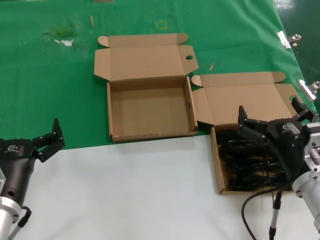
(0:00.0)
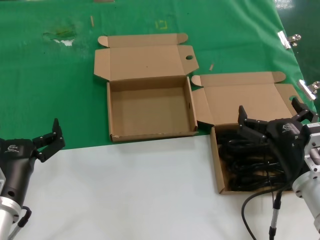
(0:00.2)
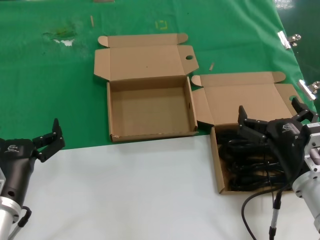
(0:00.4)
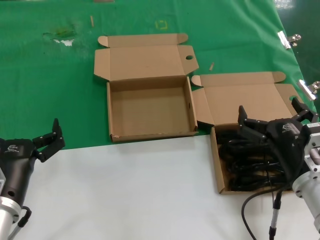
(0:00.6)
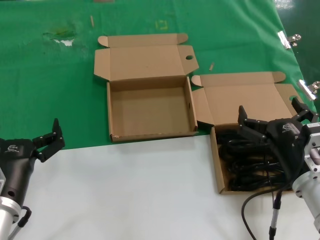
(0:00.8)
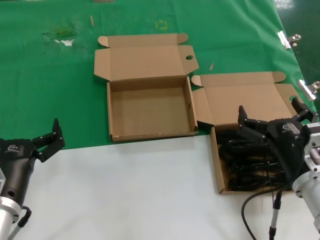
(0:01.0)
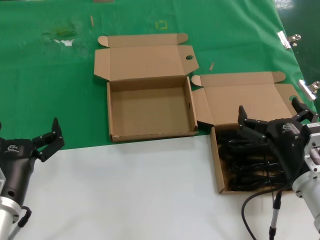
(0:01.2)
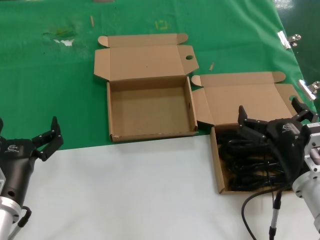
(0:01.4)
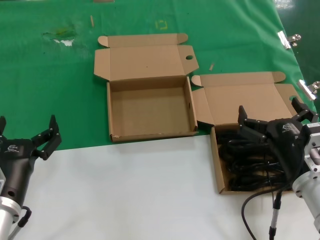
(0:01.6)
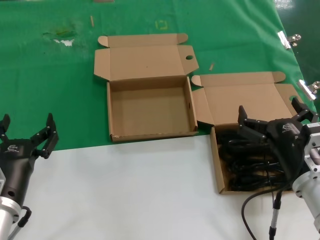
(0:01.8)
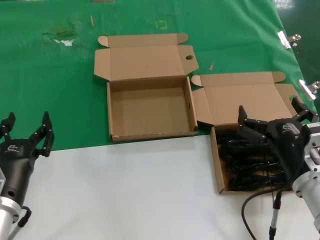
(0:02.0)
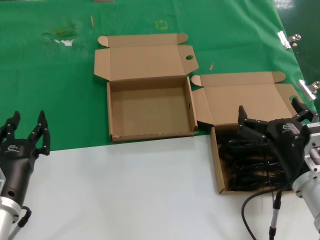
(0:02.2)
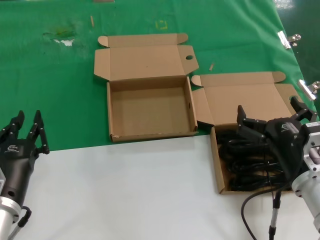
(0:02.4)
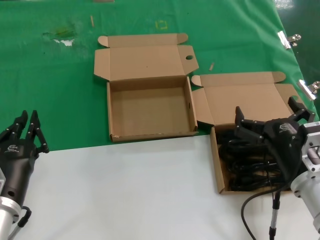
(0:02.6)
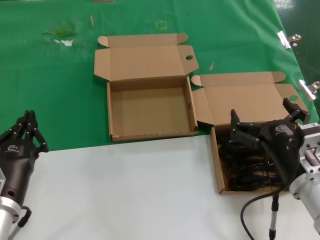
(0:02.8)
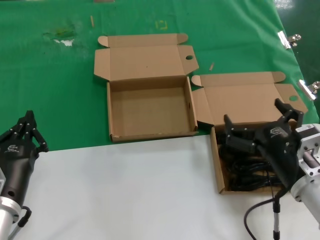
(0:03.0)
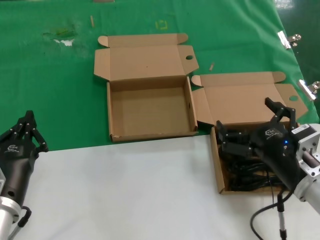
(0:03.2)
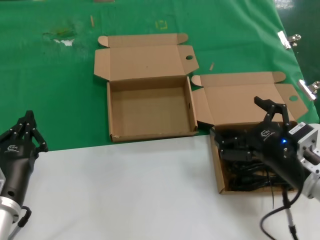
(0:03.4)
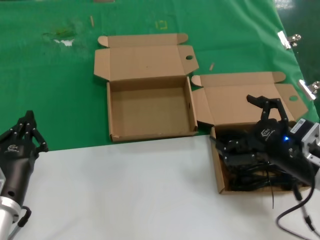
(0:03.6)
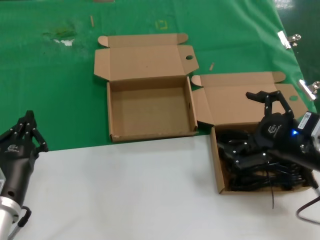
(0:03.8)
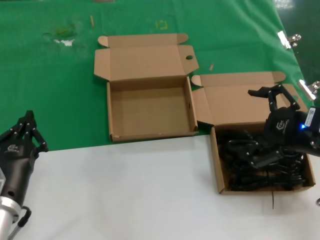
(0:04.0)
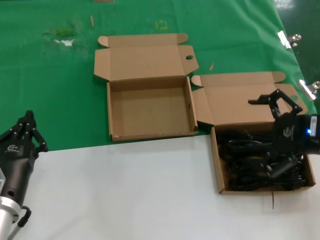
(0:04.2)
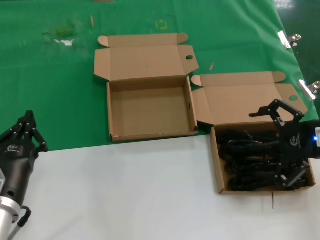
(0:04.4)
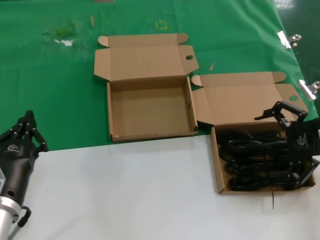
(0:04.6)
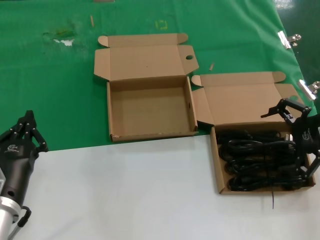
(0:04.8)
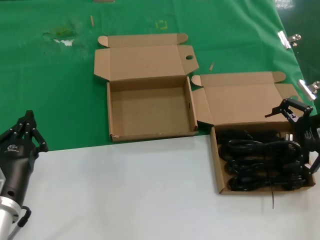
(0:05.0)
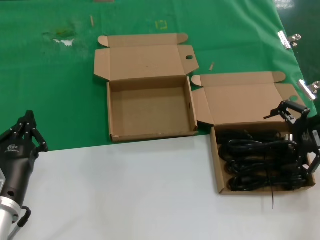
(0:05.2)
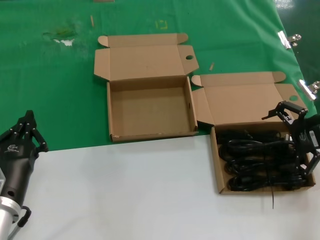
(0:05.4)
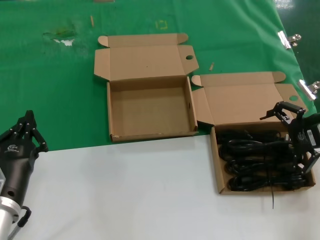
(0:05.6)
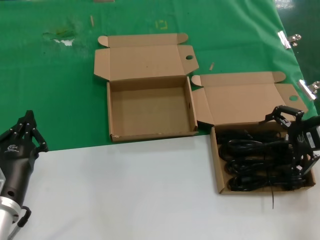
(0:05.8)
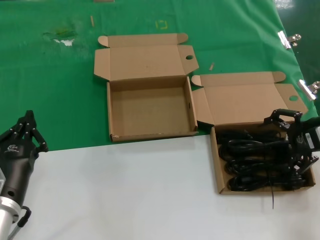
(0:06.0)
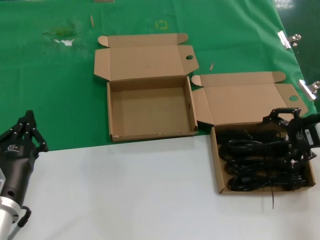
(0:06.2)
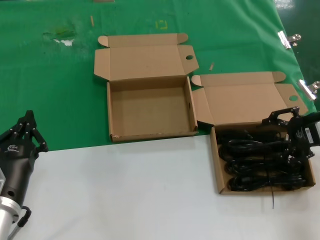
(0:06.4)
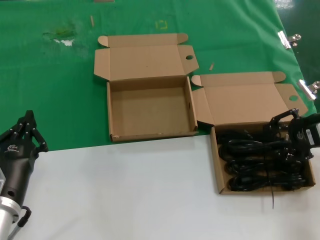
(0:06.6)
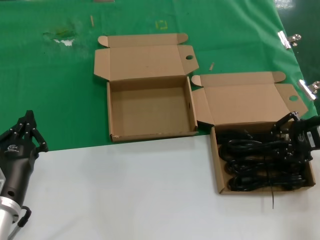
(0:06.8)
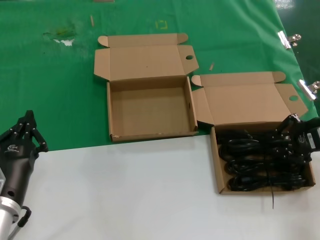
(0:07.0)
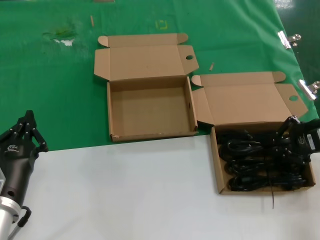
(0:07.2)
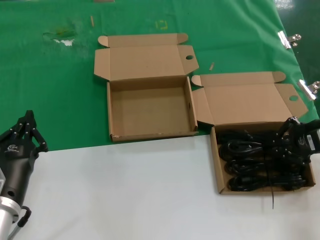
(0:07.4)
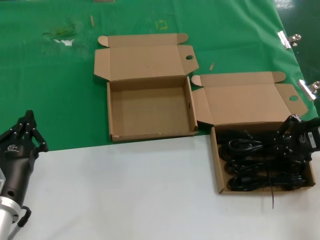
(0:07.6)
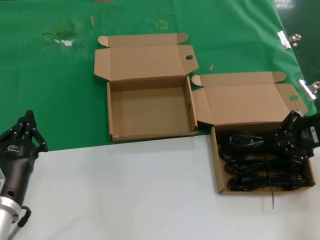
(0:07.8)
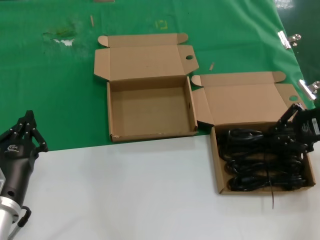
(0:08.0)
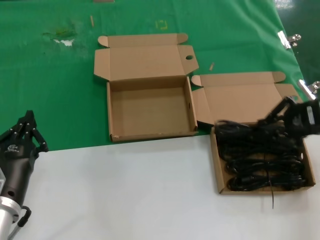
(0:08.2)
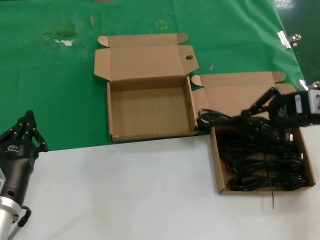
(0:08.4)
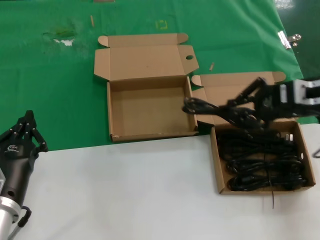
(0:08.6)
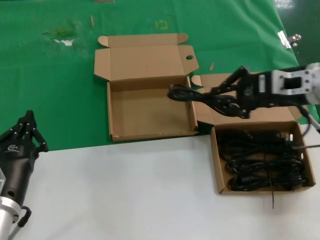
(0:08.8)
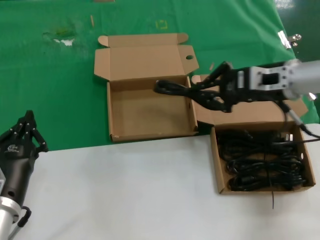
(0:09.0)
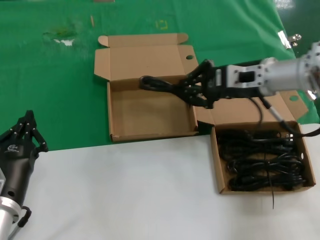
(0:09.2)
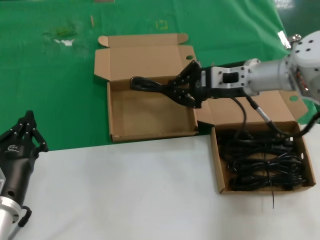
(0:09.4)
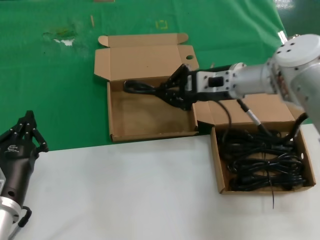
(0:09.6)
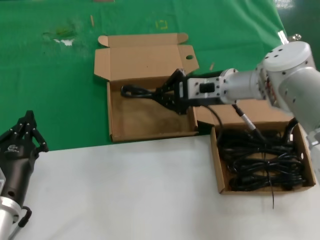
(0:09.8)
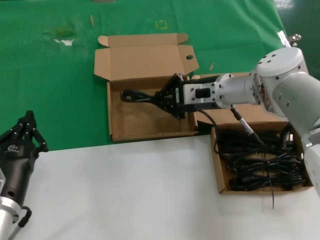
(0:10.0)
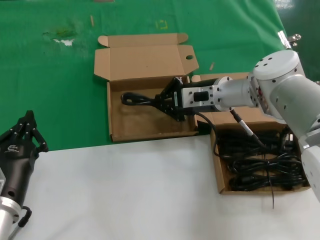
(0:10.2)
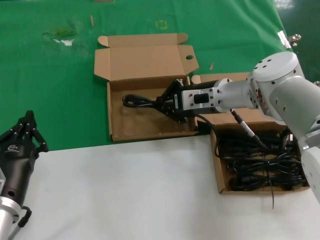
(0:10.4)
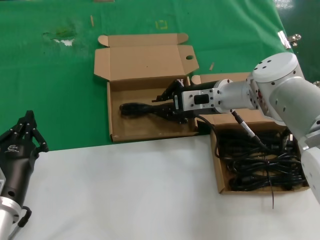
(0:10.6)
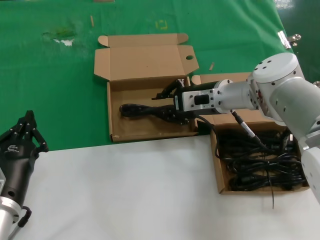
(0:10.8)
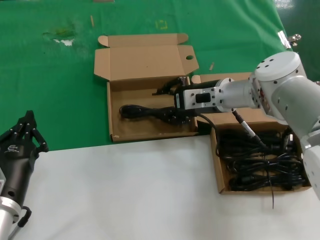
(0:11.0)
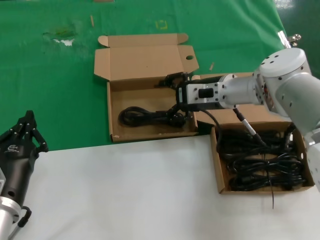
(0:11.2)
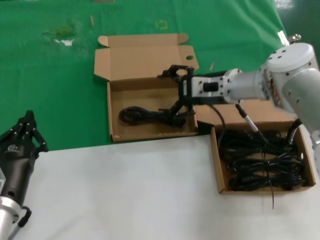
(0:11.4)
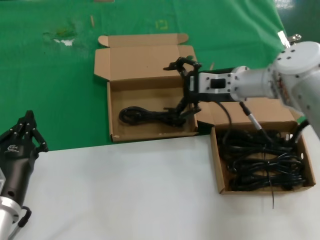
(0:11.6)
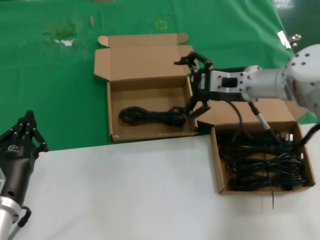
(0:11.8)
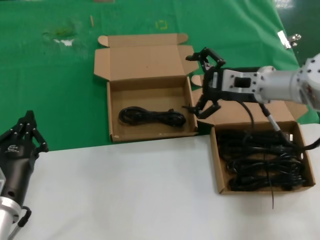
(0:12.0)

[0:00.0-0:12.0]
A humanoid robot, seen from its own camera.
Task of the whole recording: take the parts from the box containing them and put them into an empty box.
Step, 0:00.0 to 0:07.2: Grasp the data cable.
Step, 0:07.6 to 0:10.8: Place the data cable in the another box.
0:00.0 to 0:01.6: Both hands stay put.
0:01.6 to 0:03.0: There are only small adjustments of the hands.
0:03.0 to 0:04.4: The right hand is displaced upward, to the right and forward by some 20 cm.
0:04.4 to 0:06.0: The right hand is displaced forward by about 5 cm.
0:06.0 to 0:07.6: Neither hand changes place.
0:07.6 to 0:09.0: The right hand is displaced to the left and forward by approximately 15 cm.
0:09.0 to 0:10.4: The right hand shifts approximately 15 cm to the left, downward and forward.
0:10.4 to 0:12.0: The right hand heads to the right, covering roughly 5 cm.

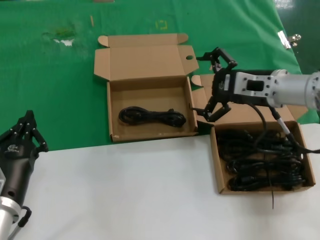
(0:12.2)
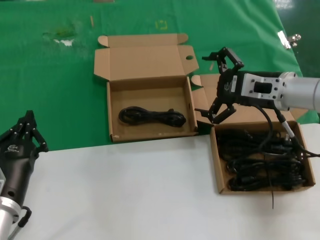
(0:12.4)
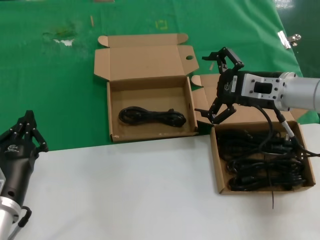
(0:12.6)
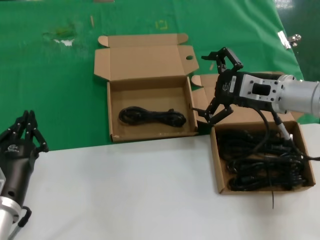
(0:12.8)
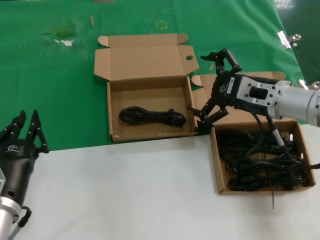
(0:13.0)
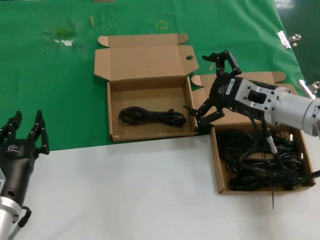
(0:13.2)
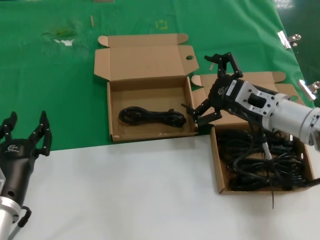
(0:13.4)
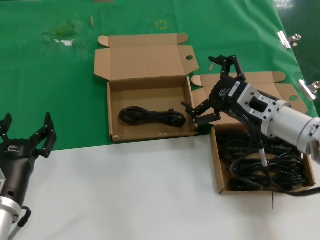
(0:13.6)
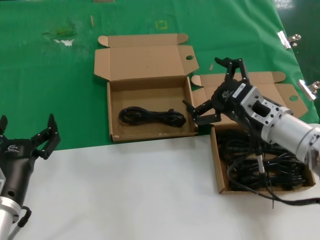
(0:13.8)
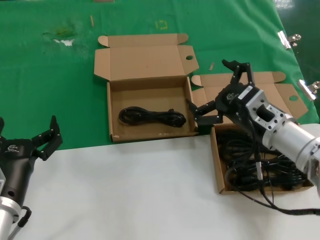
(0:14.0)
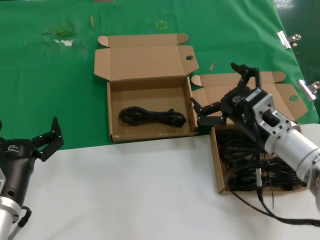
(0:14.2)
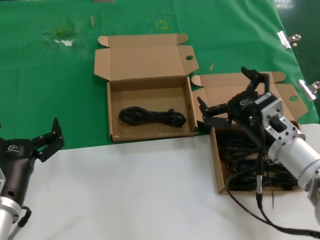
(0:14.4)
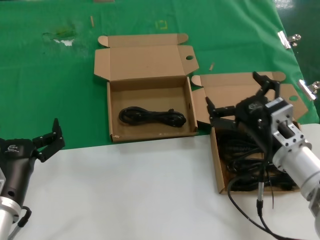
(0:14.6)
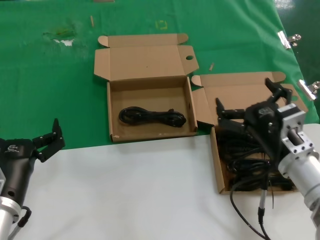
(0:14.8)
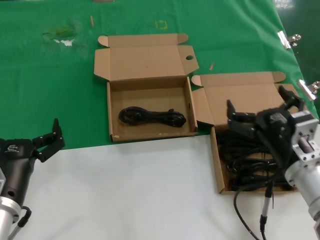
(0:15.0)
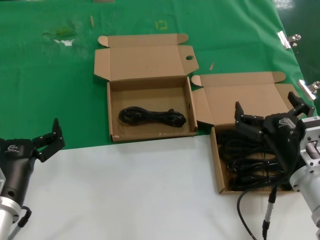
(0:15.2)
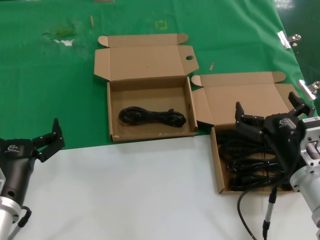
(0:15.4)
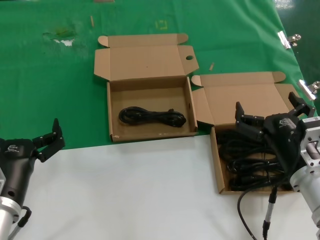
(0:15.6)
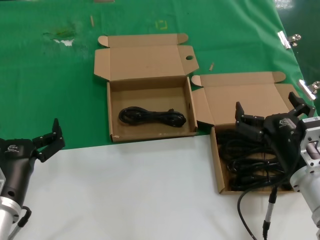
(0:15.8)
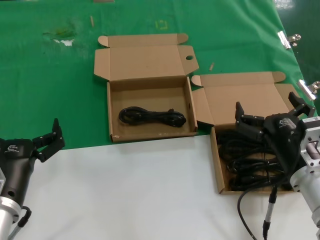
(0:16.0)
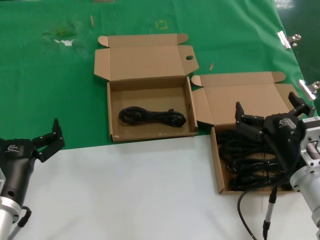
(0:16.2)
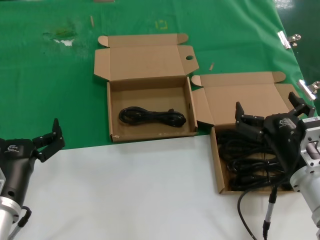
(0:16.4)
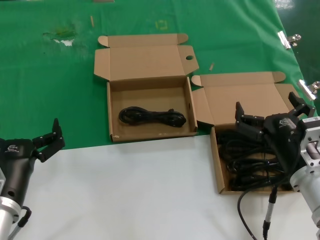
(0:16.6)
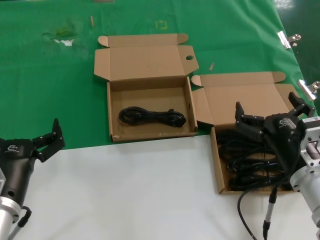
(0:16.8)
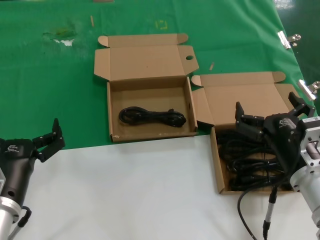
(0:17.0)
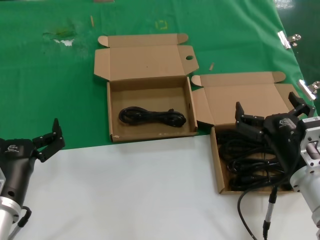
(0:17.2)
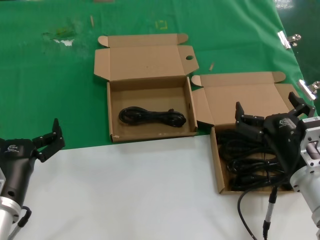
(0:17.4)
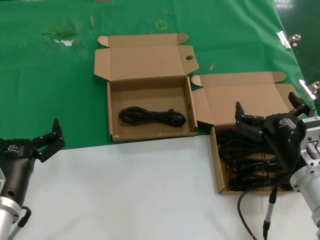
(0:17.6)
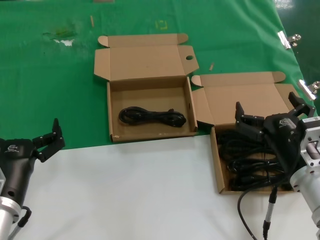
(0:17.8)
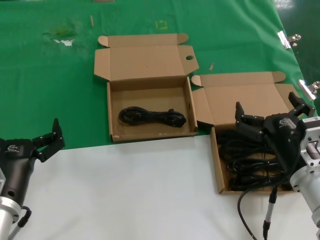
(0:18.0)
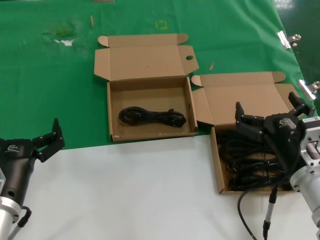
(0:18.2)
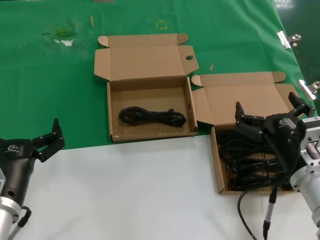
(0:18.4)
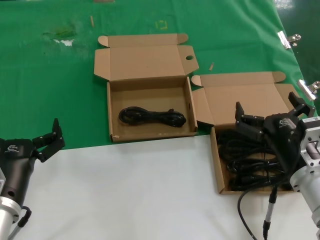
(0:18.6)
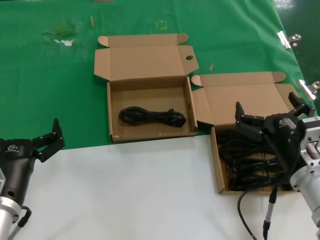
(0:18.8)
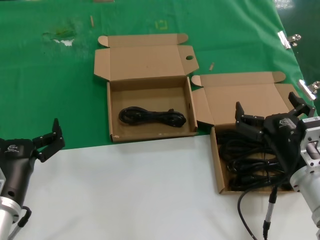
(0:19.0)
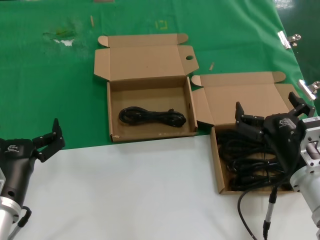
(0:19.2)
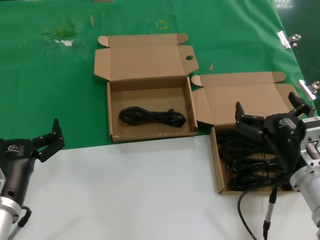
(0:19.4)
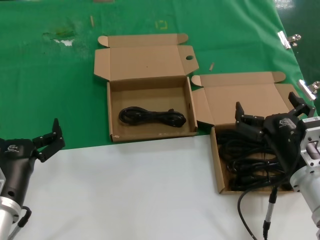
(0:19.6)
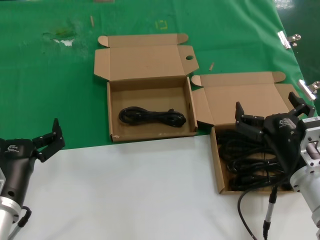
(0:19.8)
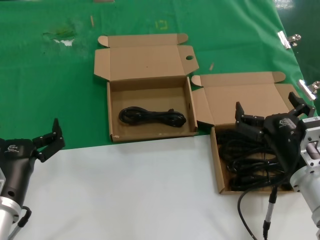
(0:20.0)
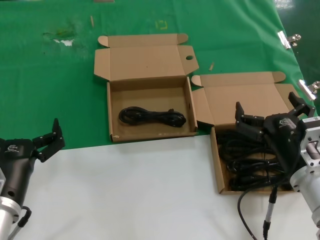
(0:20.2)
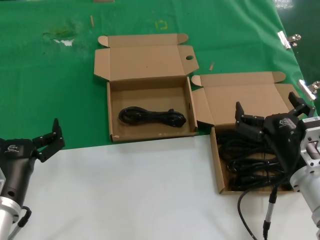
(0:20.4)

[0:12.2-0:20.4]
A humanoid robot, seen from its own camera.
Task of the whole recording: take the parts from the box containing them and put them into an empty box.
0:12.2 to 0:13.8: The right hand is displaced backward and downward by roughly 10 cm.
0:13.8 to 0:15.4: The right hand travels backward and downward by approximately 10 cm.
0:15.4 to 0:20.4: Neither hand changes place.
